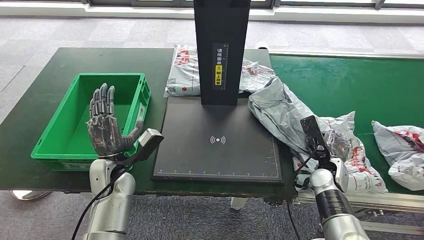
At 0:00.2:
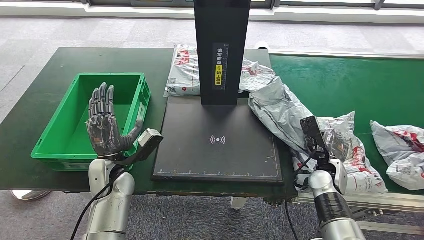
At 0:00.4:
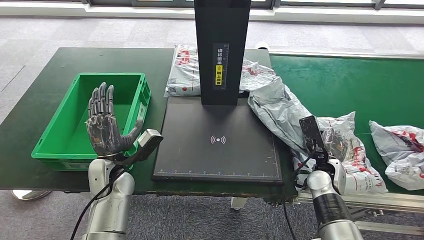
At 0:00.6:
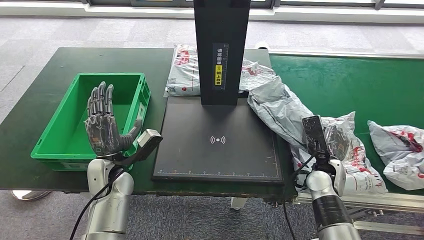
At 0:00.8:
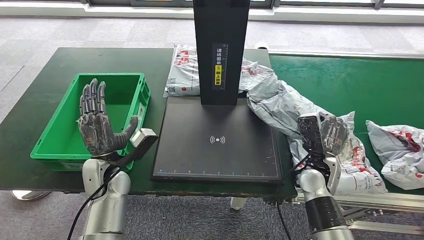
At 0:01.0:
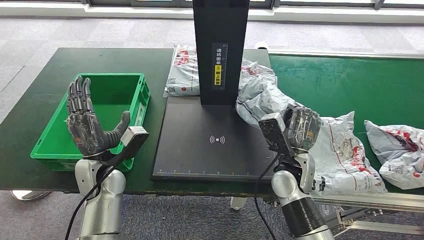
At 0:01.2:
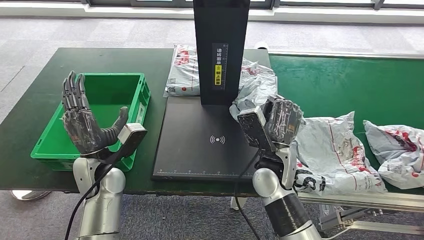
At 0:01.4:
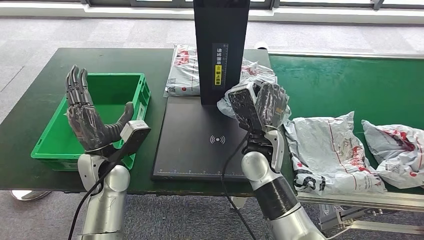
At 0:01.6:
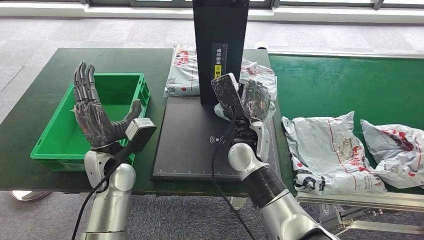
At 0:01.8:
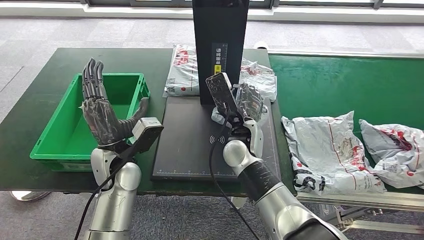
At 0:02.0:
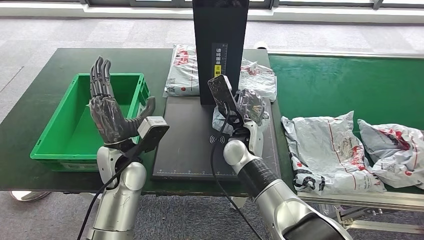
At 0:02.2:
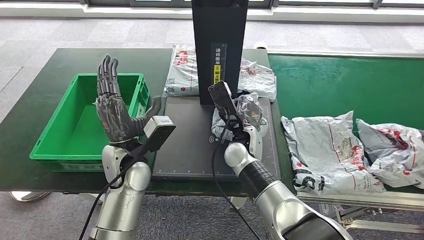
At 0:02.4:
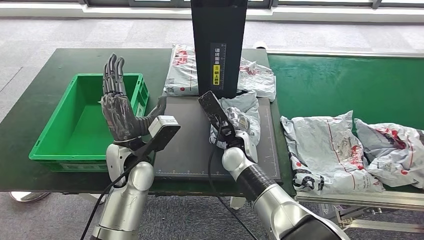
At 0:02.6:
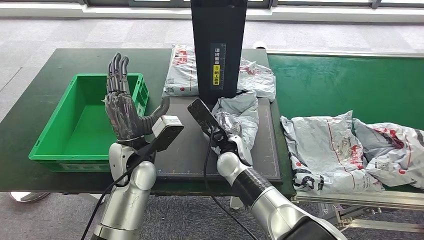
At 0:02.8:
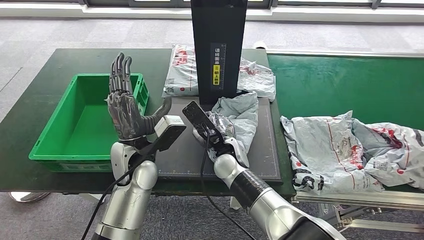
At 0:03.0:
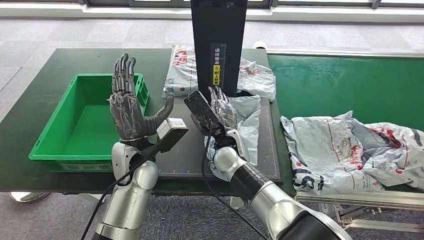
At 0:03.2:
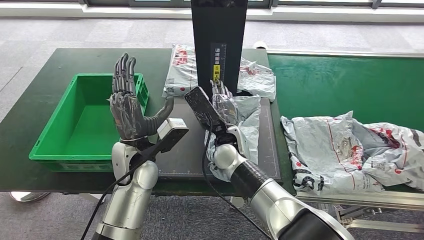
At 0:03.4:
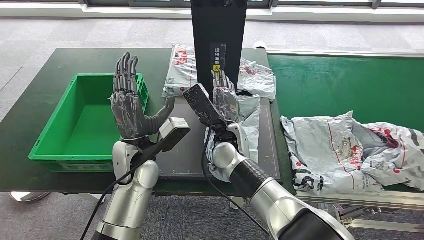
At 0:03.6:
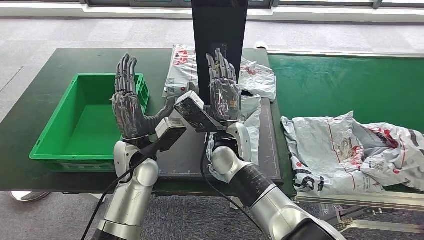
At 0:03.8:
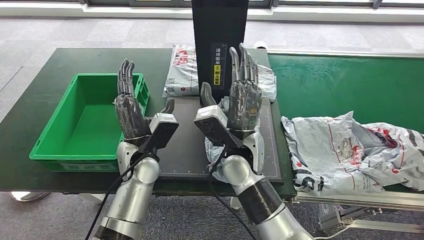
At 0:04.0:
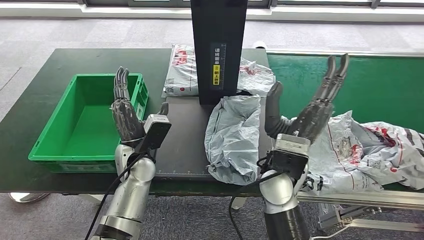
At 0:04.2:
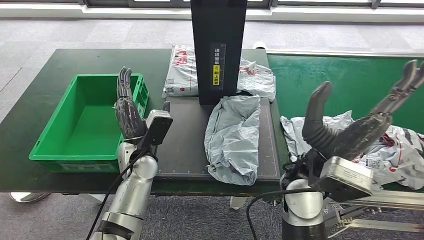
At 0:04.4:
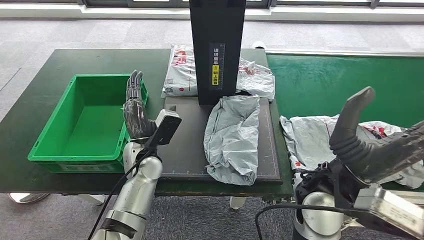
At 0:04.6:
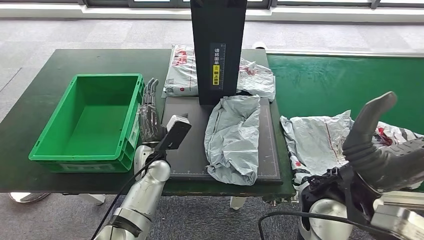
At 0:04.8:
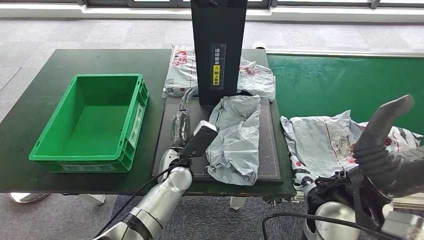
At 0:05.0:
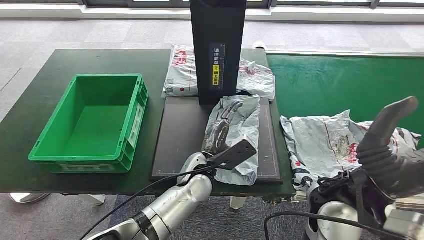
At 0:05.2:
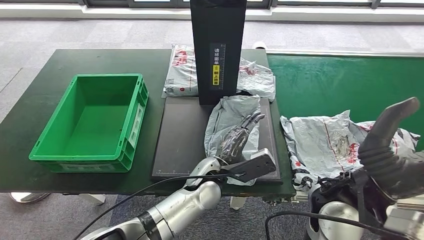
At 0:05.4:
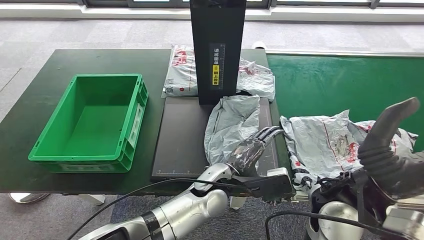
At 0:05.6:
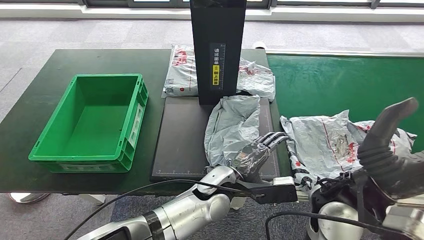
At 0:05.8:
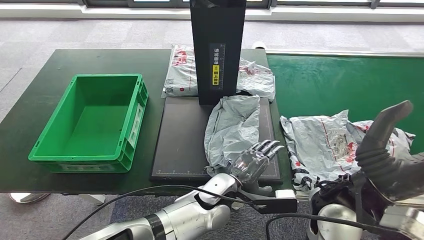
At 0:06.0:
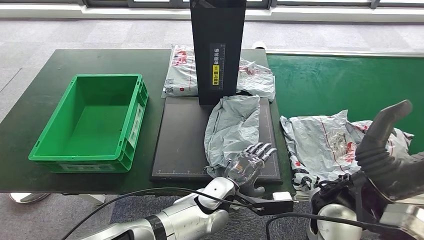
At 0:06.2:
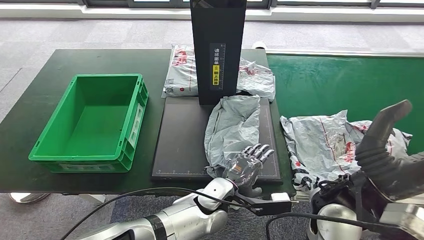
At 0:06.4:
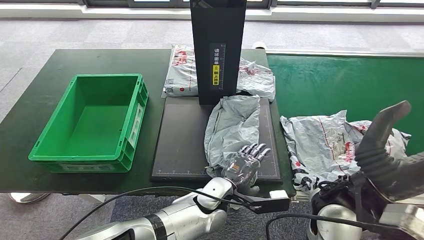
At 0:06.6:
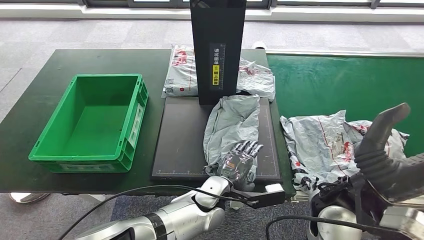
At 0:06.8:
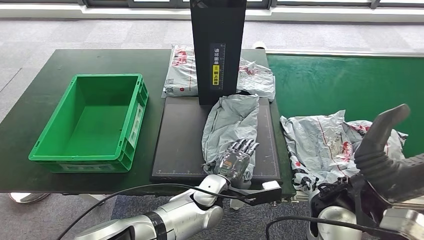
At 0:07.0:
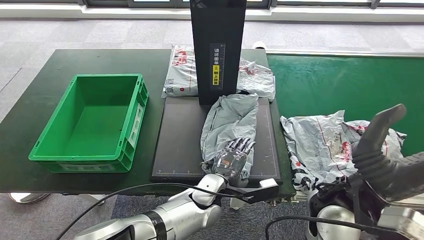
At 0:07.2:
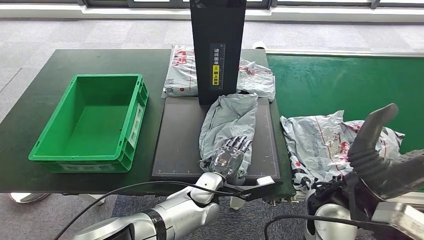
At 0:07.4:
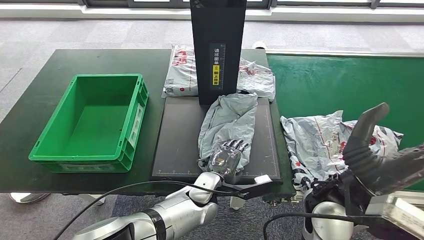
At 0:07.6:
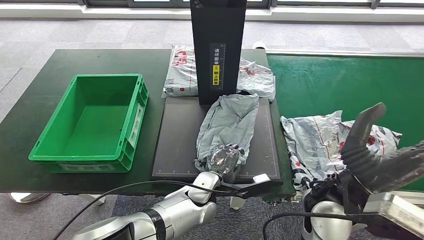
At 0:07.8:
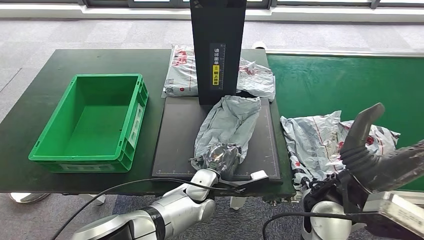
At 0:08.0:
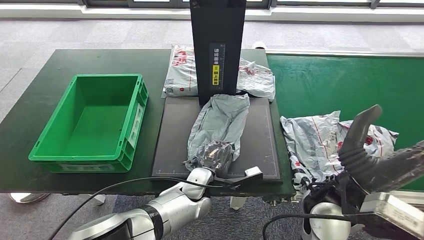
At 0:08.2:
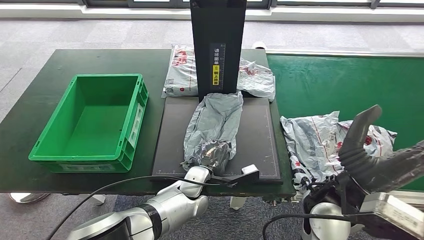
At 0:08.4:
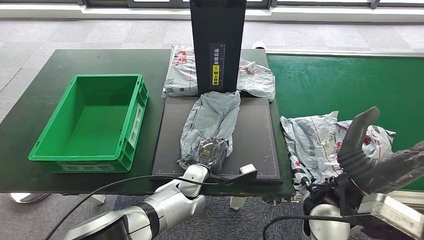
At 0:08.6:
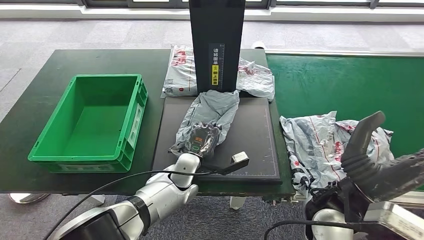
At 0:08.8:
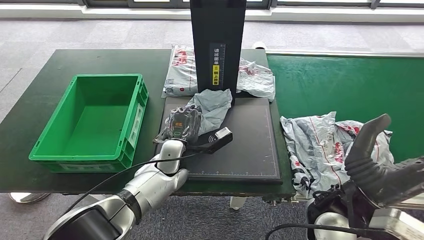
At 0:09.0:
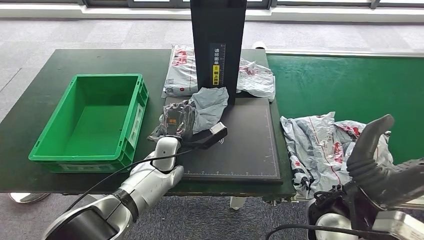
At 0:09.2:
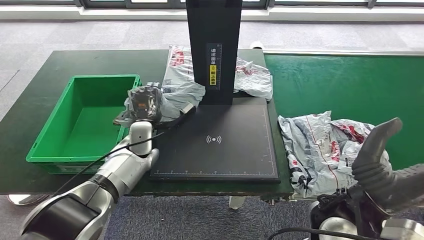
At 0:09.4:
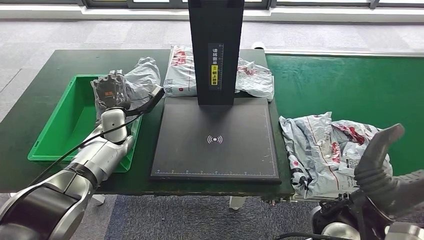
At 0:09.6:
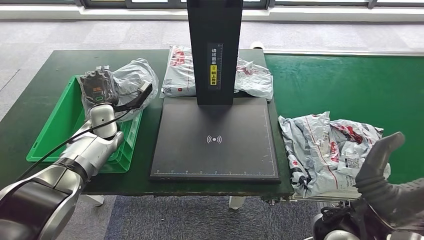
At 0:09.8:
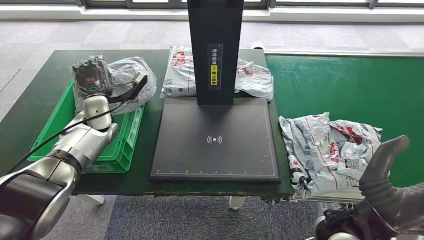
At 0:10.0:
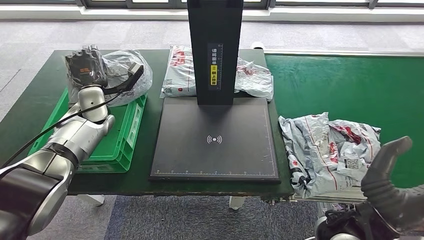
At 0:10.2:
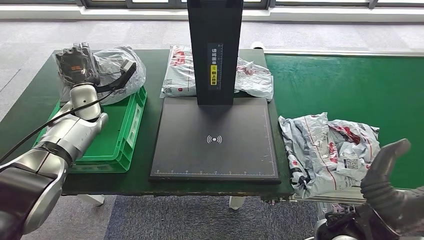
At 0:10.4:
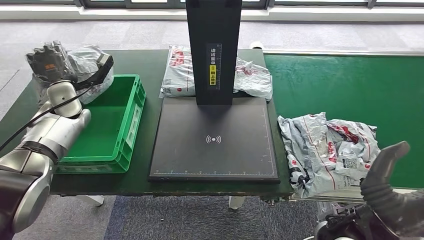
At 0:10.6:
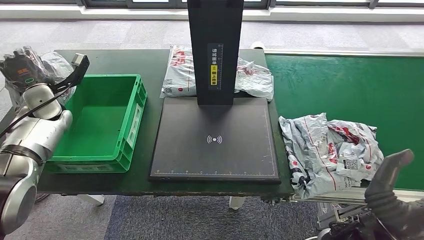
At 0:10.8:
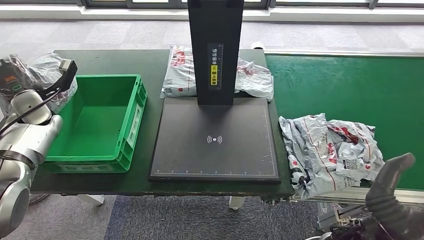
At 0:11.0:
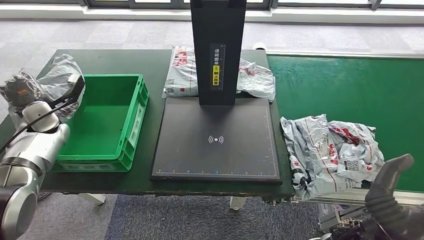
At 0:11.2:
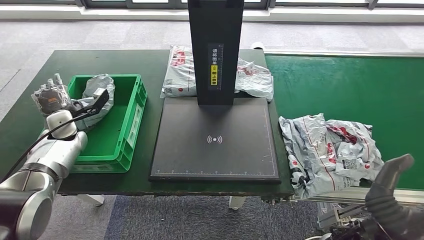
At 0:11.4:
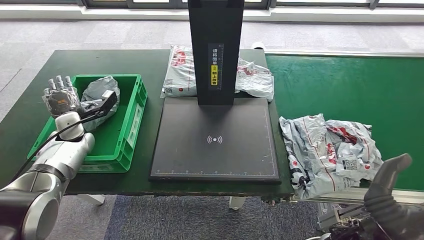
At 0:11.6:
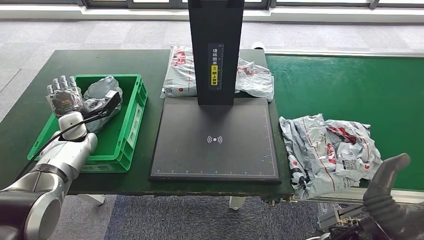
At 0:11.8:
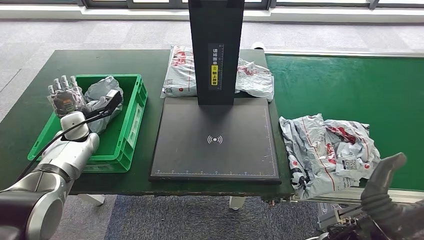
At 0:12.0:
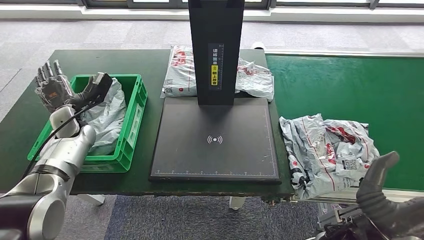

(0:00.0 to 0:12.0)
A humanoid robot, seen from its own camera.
Step, 0:04.2 - 0:09.8: Pick up the parcel from the inbound machine.
0:06.0 - 0:07.6: The hands make only small movements.

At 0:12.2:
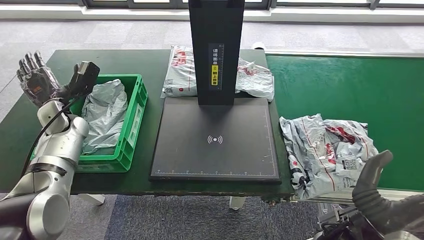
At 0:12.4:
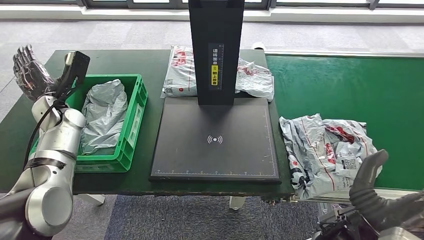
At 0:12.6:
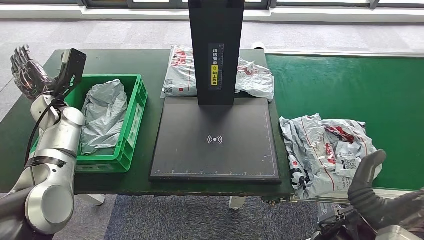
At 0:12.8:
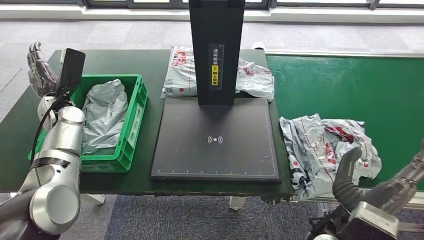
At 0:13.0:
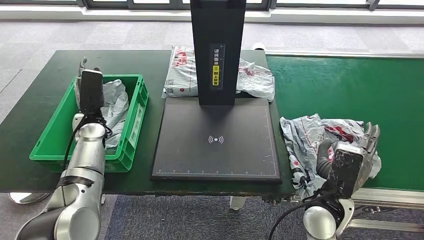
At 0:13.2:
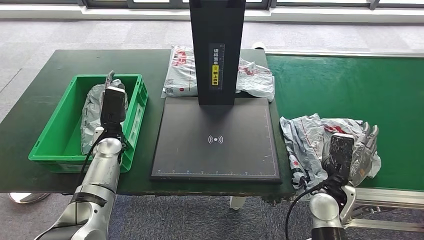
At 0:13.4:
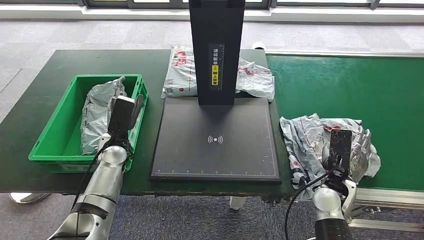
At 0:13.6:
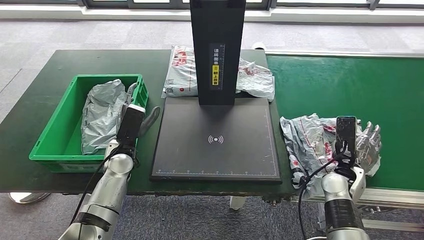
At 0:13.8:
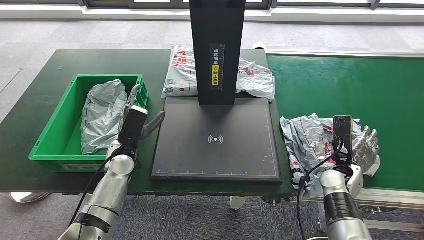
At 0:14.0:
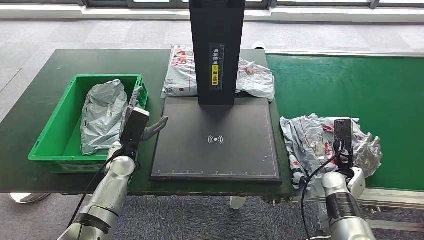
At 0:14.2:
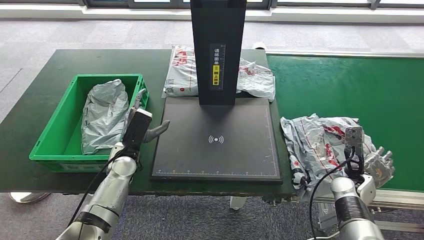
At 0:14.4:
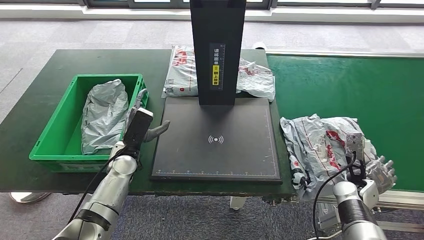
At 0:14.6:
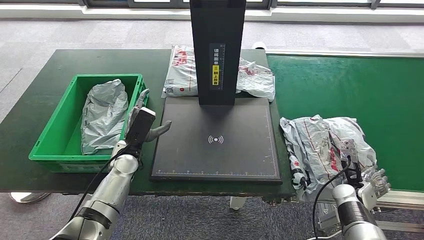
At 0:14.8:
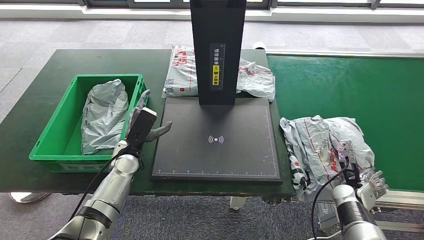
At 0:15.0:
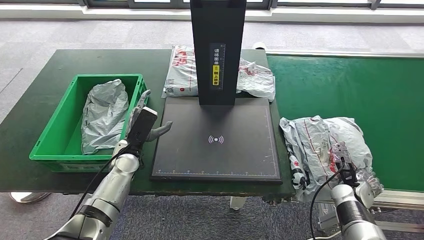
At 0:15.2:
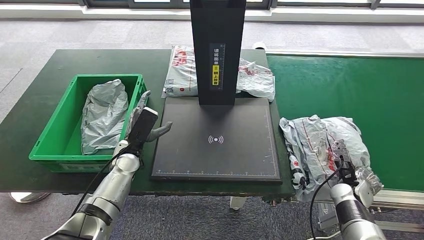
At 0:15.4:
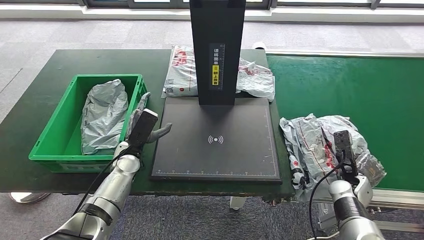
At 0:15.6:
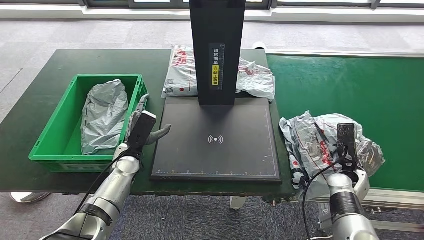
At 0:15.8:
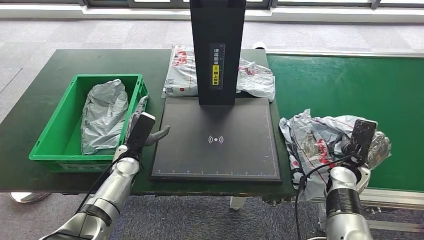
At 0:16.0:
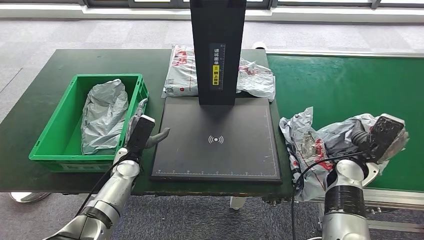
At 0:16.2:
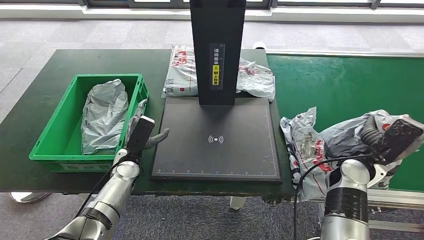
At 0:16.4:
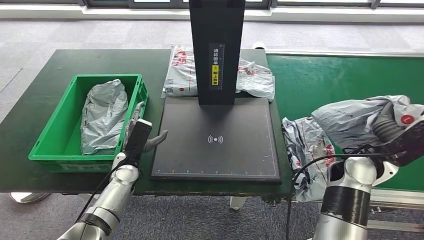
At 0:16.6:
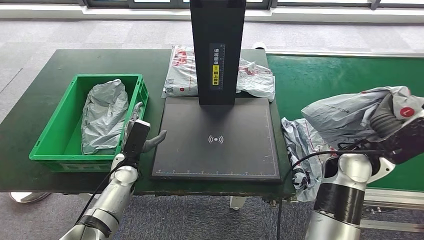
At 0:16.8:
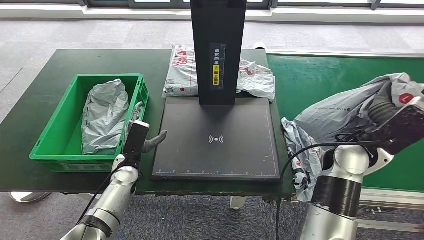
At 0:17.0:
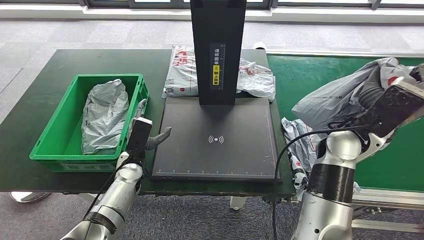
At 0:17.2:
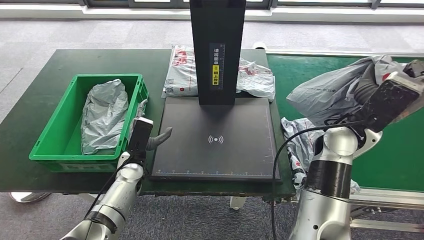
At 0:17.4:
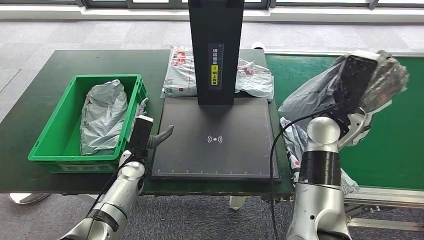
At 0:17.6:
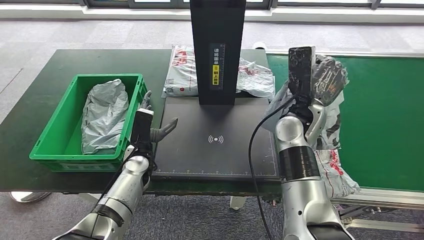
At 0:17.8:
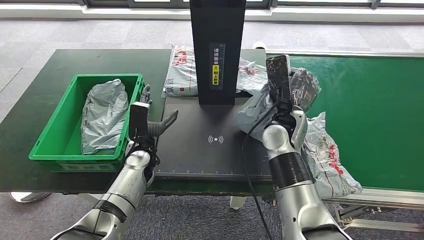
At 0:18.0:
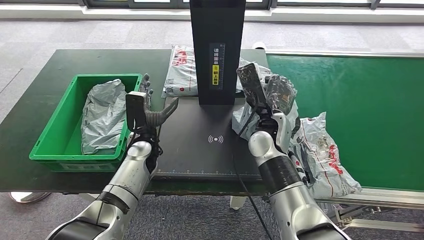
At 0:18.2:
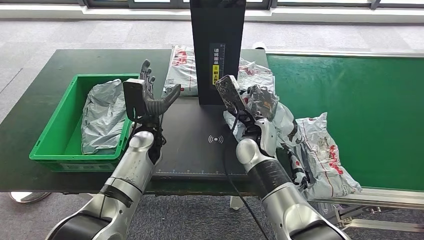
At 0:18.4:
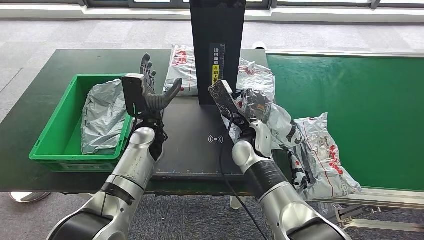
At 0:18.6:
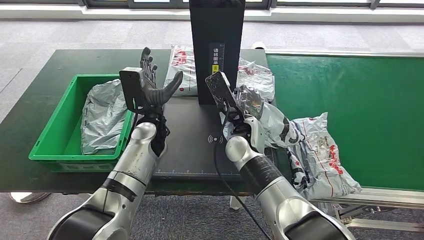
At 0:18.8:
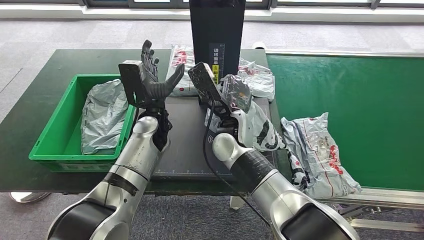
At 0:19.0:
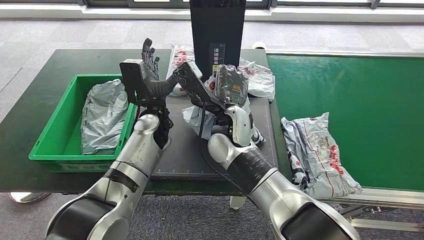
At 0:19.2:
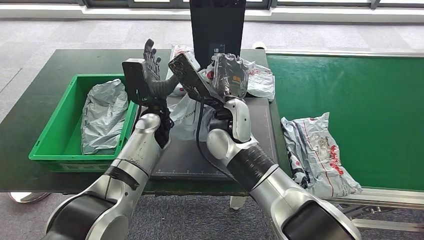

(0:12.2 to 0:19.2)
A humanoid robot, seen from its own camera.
Step, 0:13.6 - 0:17.2: Pick up the parcel from the conveyor belt.
0:13.6 - 0:15.0: The right hand is displaced downward and to the right by some 10 cm.
0:15.0 - 0:16.4: The right hand shifts approximately 20 cm upward and to the left.
